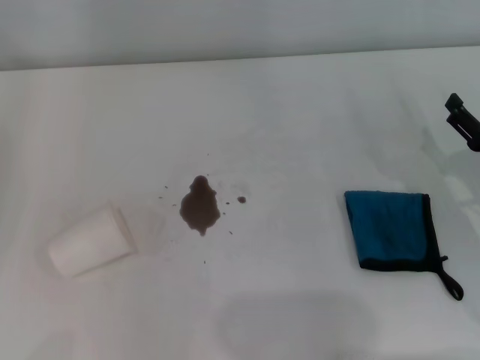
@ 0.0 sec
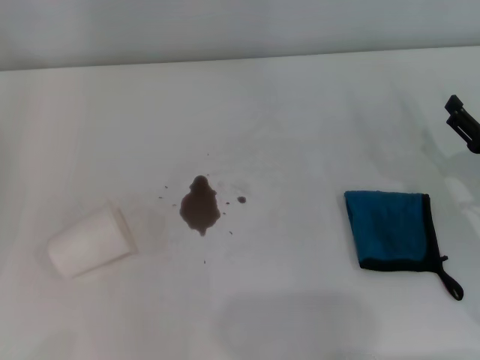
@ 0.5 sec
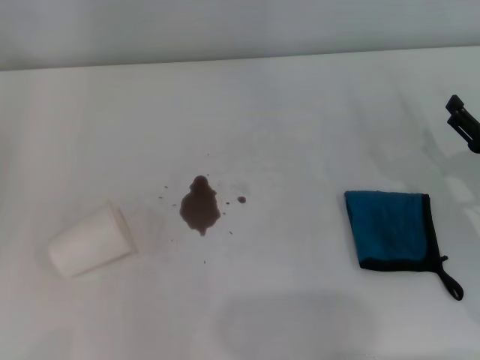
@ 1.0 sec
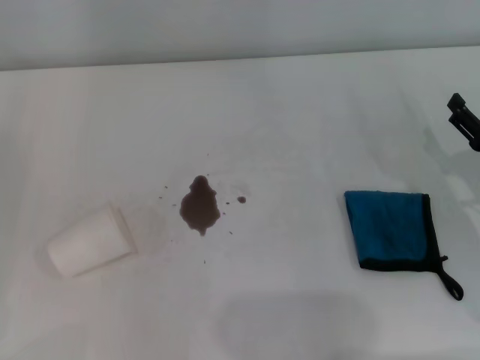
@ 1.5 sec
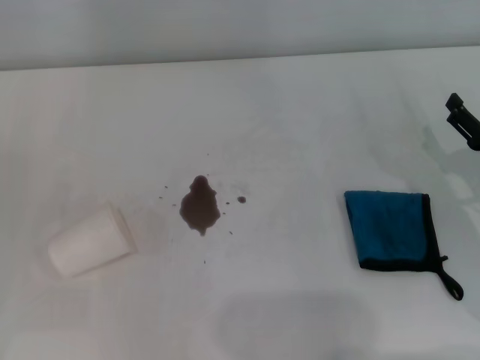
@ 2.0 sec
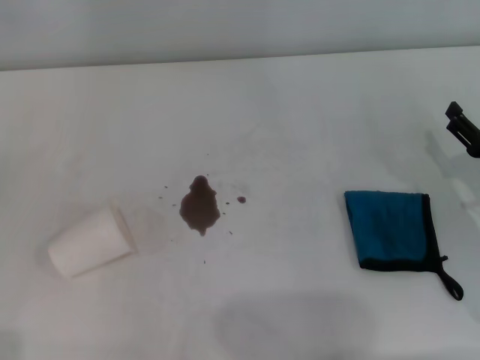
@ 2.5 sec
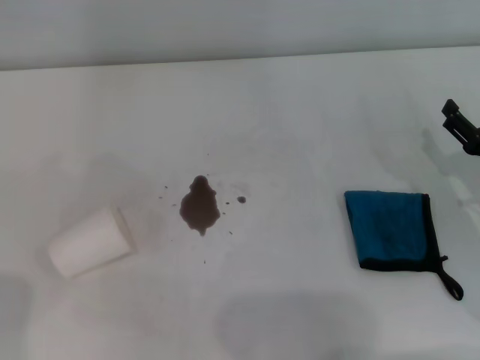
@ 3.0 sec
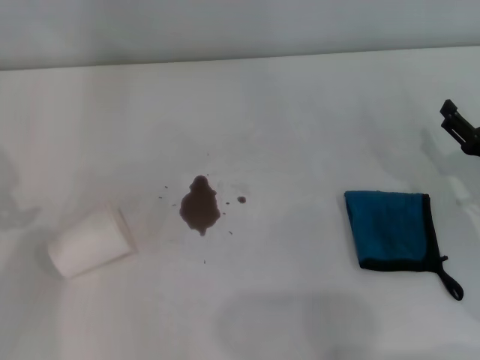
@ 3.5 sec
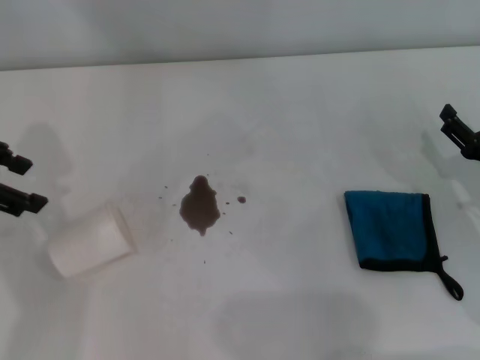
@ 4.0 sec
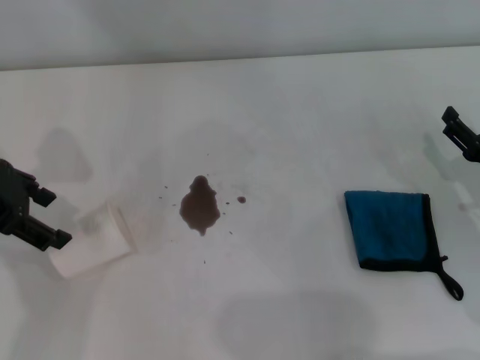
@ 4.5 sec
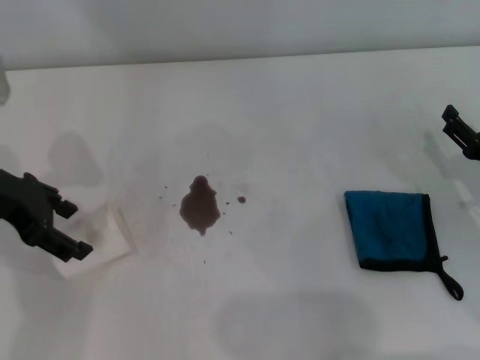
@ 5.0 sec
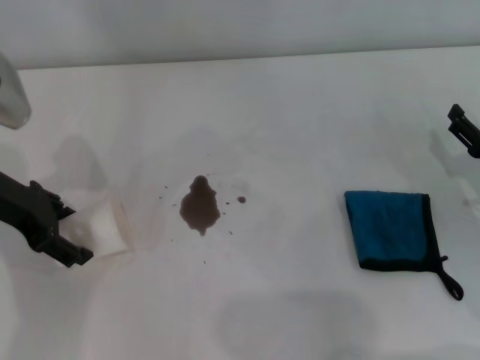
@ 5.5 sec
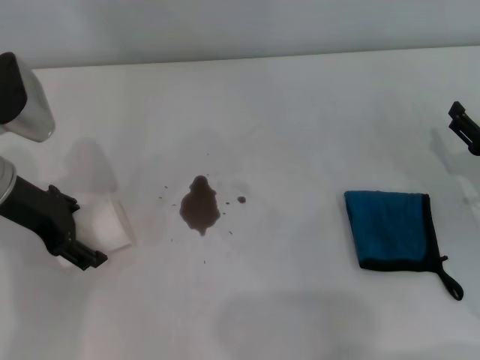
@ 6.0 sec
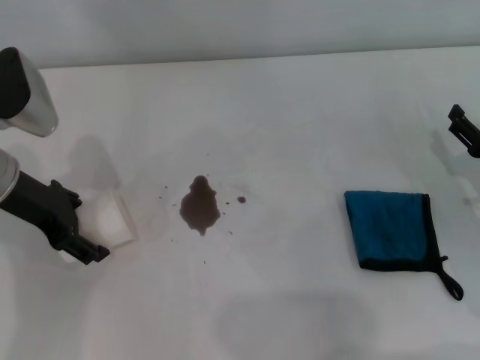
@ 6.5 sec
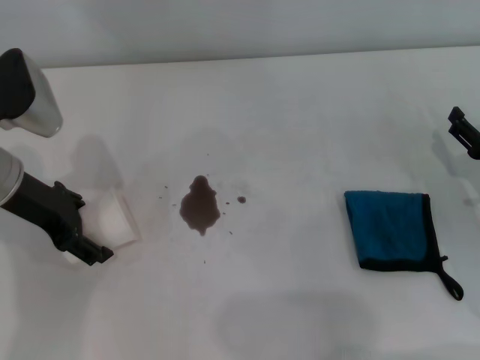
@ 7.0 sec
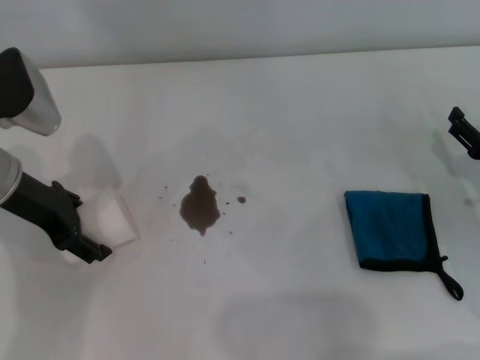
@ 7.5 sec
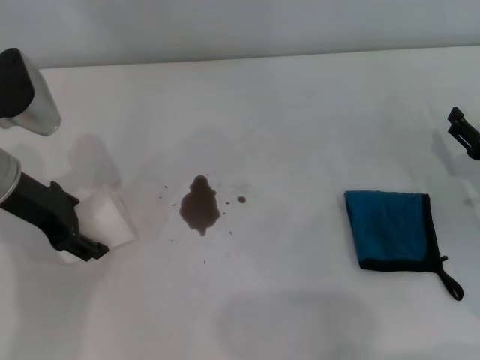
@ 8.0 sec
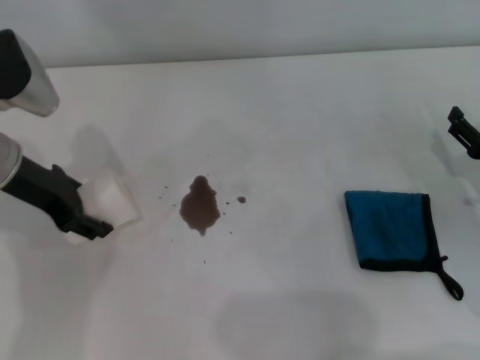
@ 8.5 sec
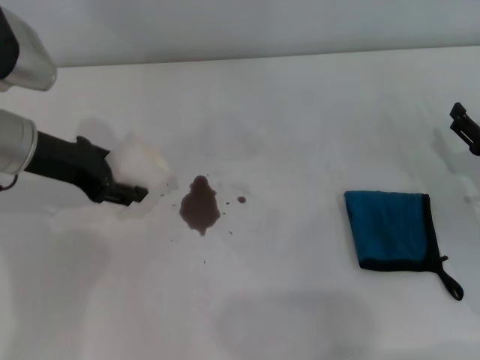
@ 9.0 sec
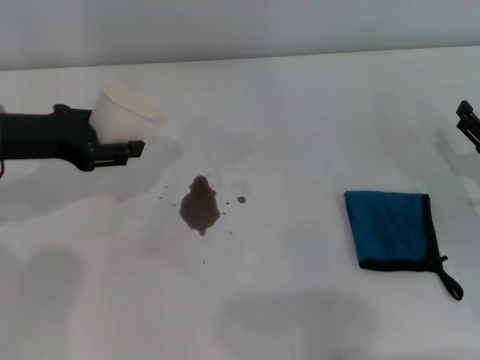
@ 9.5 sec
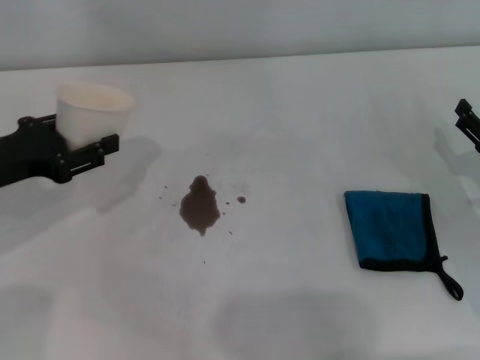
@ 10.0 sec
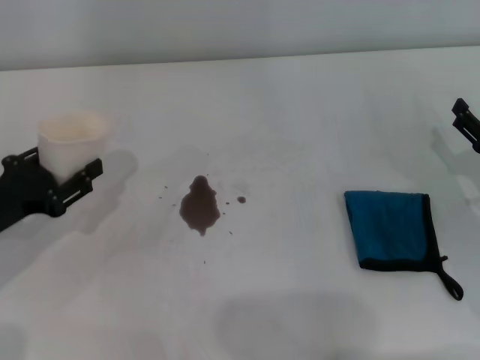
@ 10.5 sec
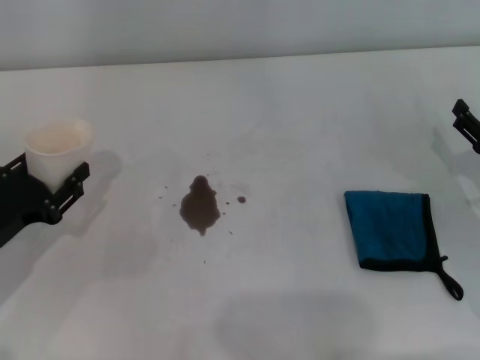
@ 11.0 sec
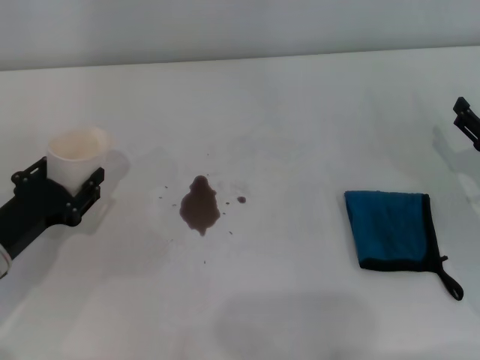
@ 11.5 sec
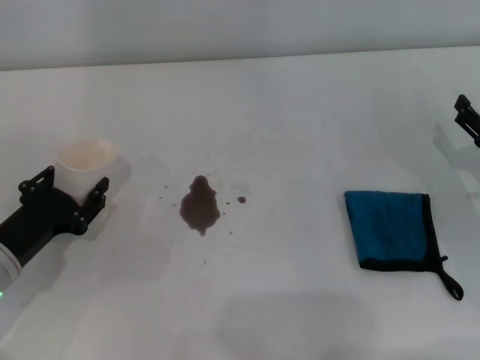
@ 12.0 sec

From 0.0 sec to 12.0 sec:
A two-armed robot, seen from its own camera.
Step, from 0.0 sec to 6.0 sec: Grasp the paper cup with the left gripper.
From 2.0 sec to 4.0 sec: The left gripper shifts approximately 25 cm upward, forward and to the right.
From 4.0 sec to 6.0 sec: The left gripper shifts approximately 10 cm downward and to the right, and opens.
From 6.0 sec to 8.0 sec: The left gripper closes up.
From 8.0 sec to 10.0 sec: The left gripper goes some 5 cm to the left, and closes.
From 10.0 sec to 12.0 sec: The left gripper shifts approximately 10 cm downward and backward.

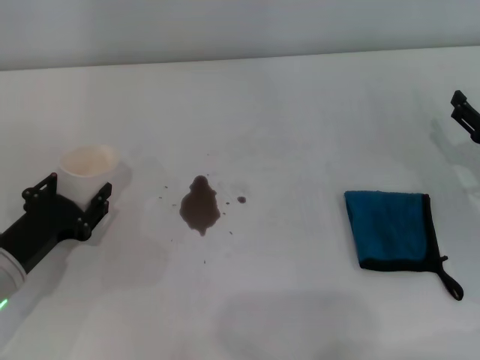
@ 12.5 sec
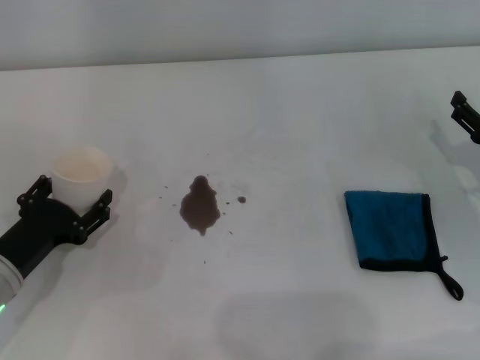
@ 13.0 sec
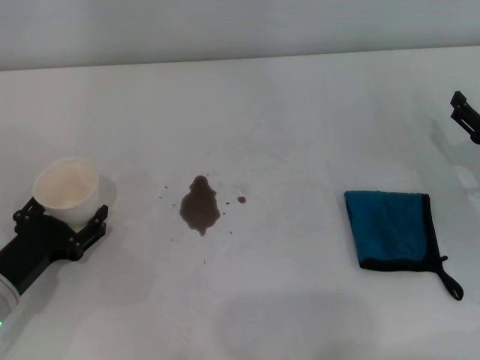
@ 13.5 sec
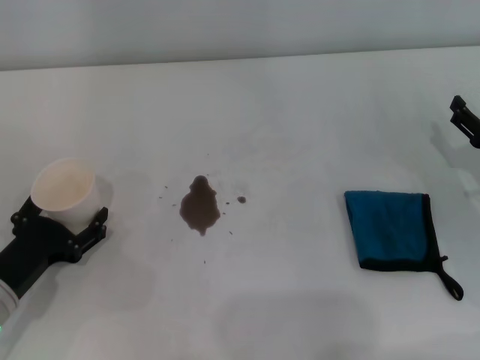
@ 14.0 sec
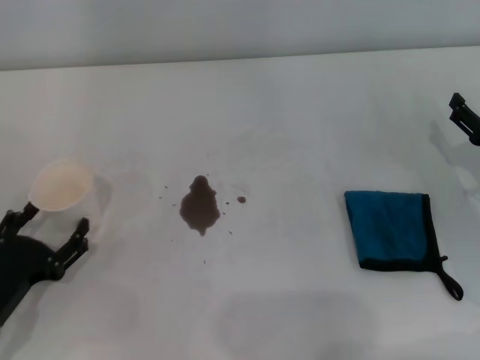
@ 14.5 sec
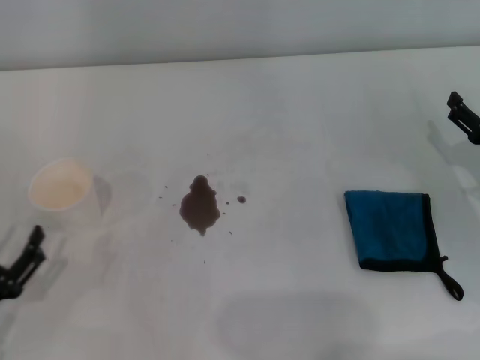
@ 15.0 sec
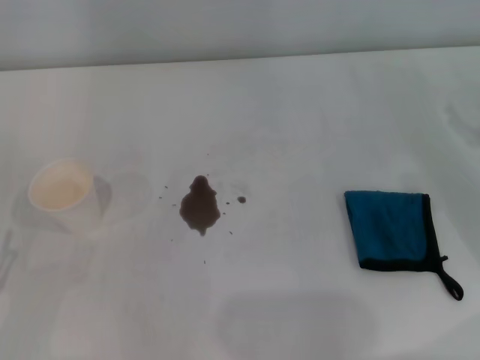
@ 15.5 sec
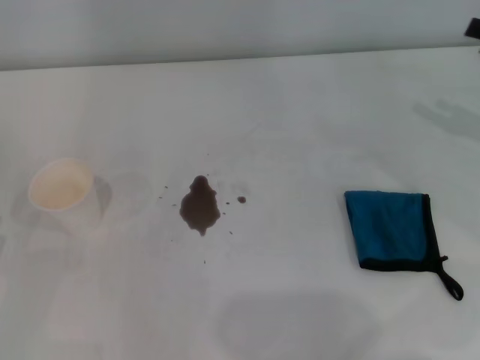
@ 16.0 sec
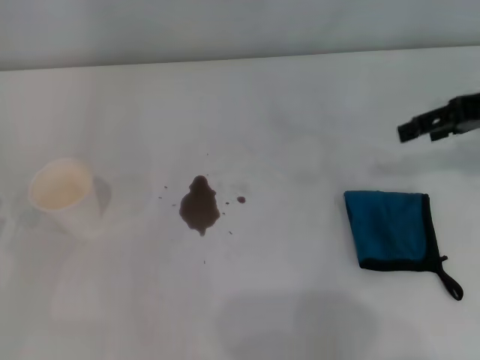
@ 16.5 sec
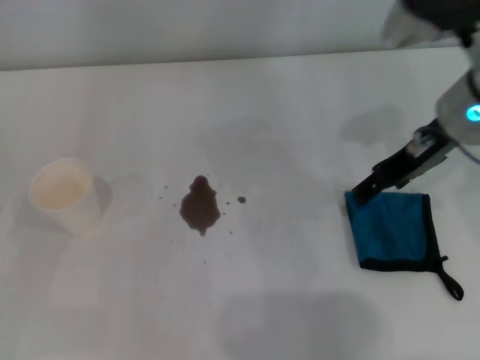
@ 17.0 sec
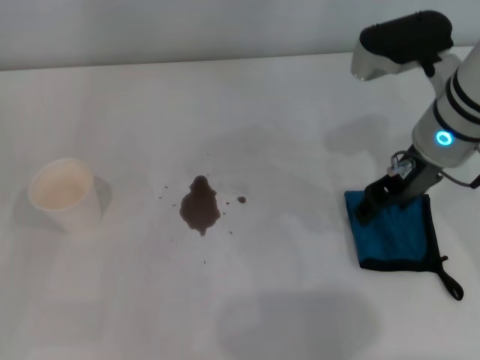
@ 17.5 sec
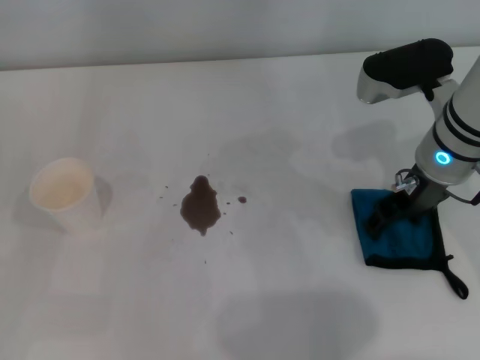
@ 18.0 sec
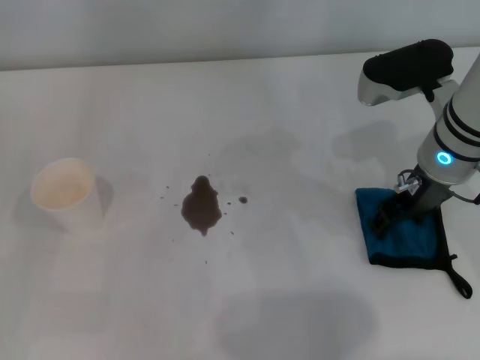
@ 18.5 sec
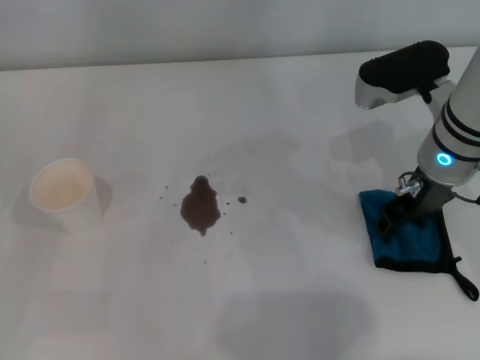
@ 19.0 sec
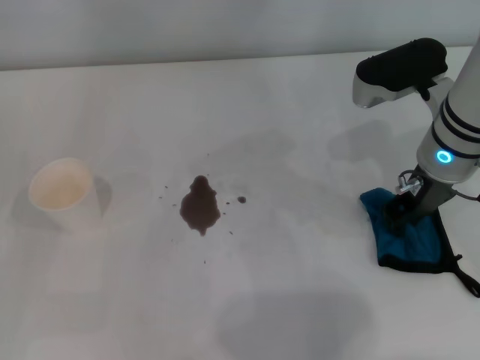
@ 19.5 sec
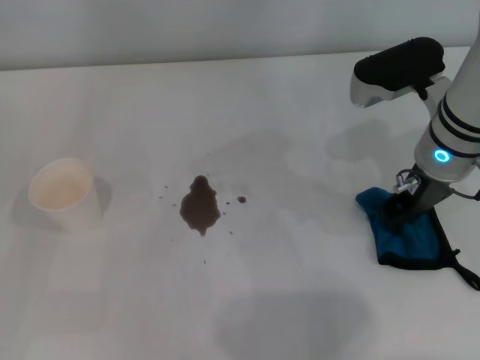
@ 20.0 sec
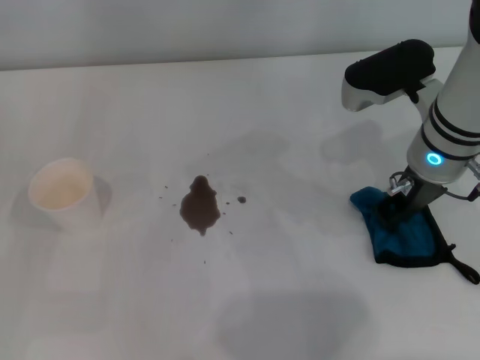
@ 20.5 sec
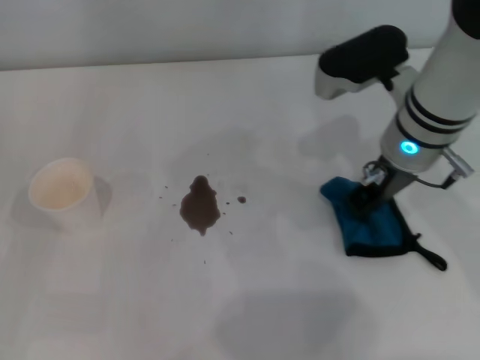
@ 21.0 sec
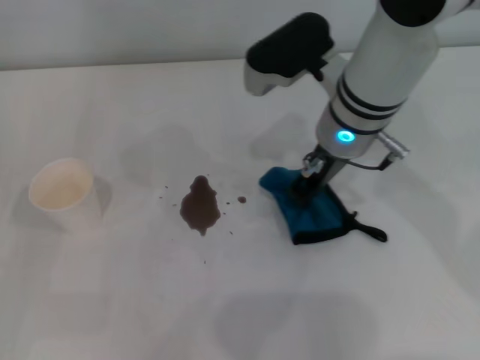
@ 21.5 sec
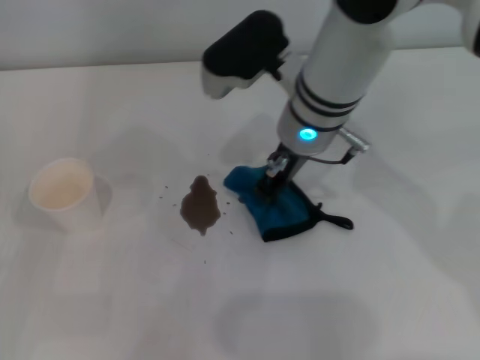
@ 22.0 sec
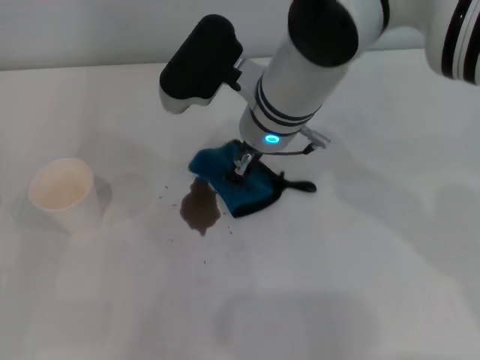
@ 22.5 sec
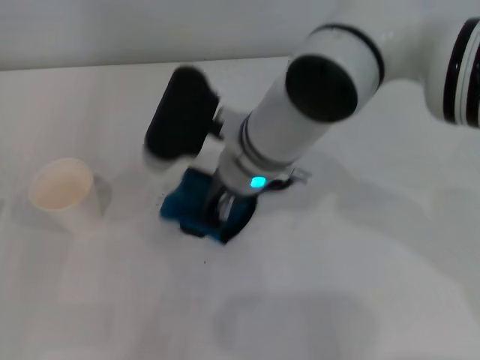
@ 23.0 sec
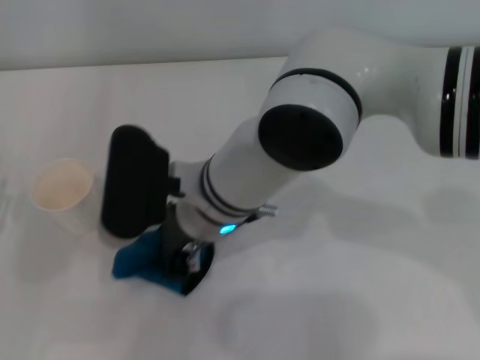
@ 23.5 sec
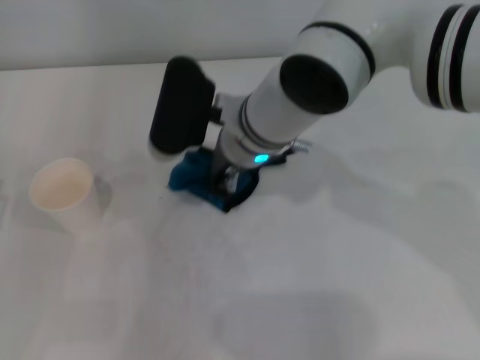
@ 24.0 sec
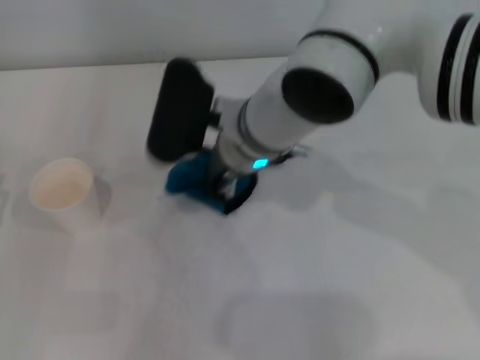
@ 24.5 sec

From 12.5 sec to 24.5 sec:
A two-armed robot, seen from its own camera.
Step, from 14.5 sec to 19.5 sec: Grasp the rag with the right gripper.
From 12.5 sec to 14.5 sec: The left gripper shifts approximately 5 cm backward, and opens up.
From 14.5 sec to 16.5 sec: The left gripper is displaced to the left by approximately 5 cm, and closes its fingers, while the right gripper moves upward and forward, roughly 20 cm.
From 16.5 sec to 18.5 sec: The right gripper heads to the left and downward, covering approximately 15 cm.
From 18.5 sec to 20.5 sec: The right gripper closes up.
From 20.5 sec to 22.5 sec: The right gripper goes about 15 cm to the left.

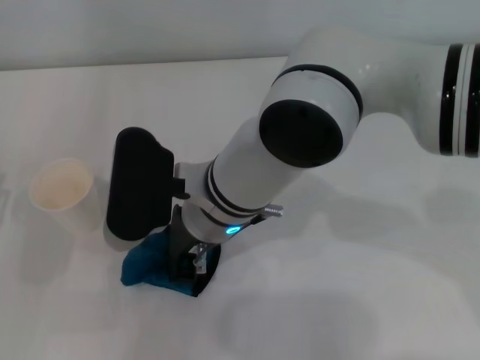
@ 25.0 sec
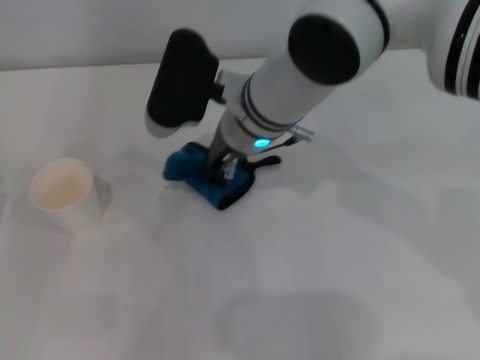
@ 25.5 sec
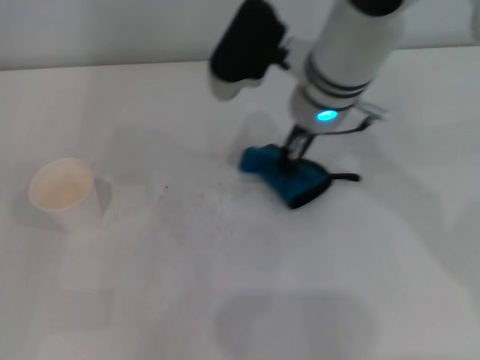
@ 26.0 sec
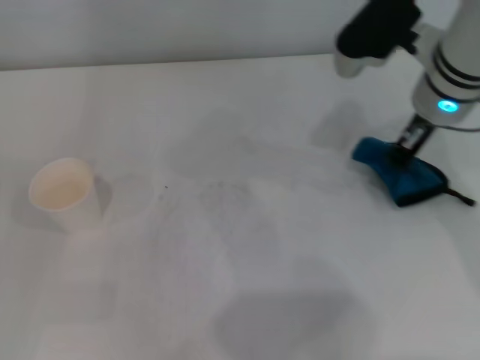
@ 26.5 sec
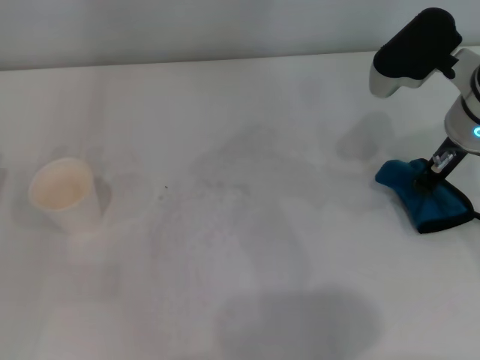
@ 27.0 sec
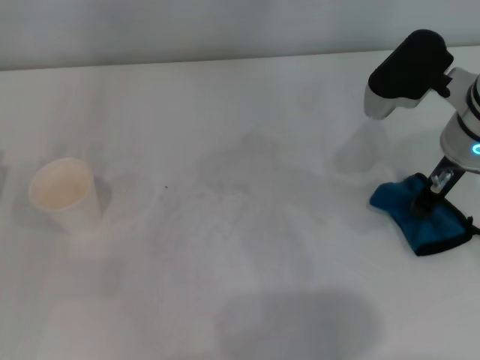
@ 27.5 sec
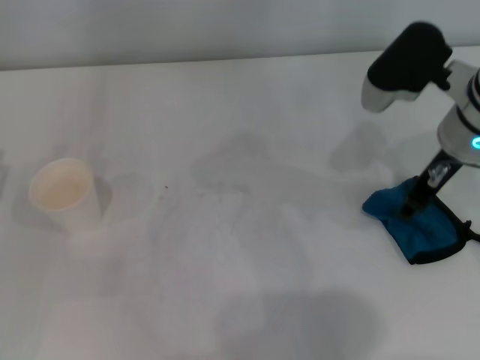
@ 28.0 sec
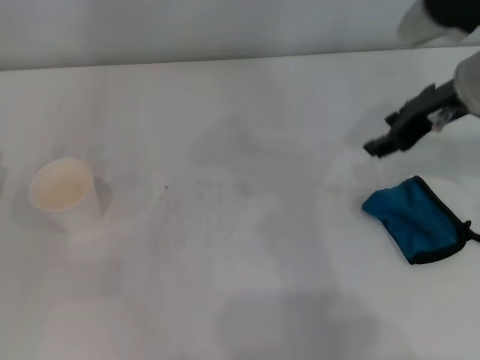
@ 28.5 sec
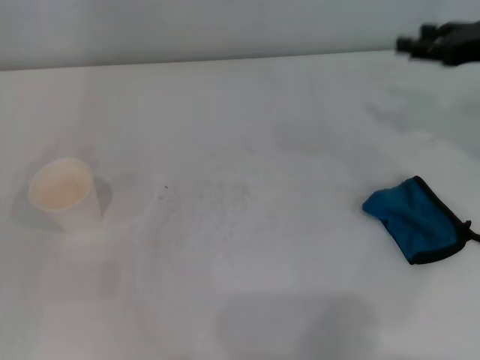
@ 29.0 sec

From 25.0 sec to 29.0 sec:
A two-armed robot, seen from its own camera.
Step, from 25.0 sec to 27.0 sec: Wipe the stains off the table with the right gripper.
From 25.0 sec to 27.0 sec: The right gripper travels to the right by about 25 cm.
From 27.0 sec to 29.0 sec: The right gripper goes about 10 cm to the right, and opens its fingers.
